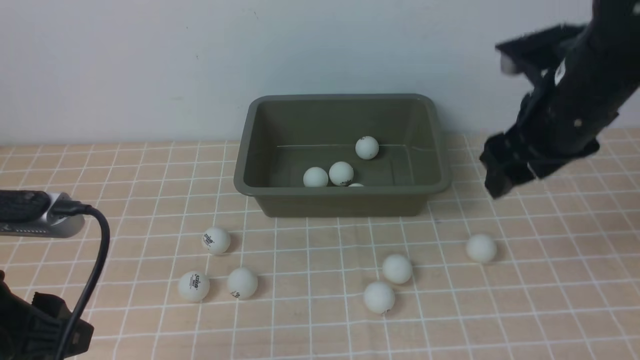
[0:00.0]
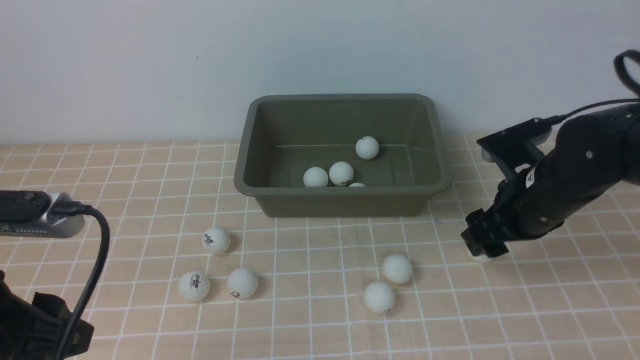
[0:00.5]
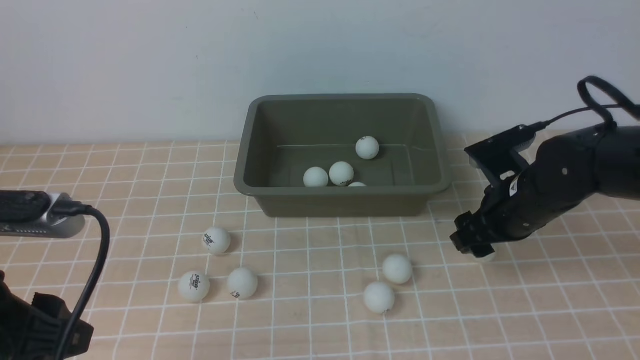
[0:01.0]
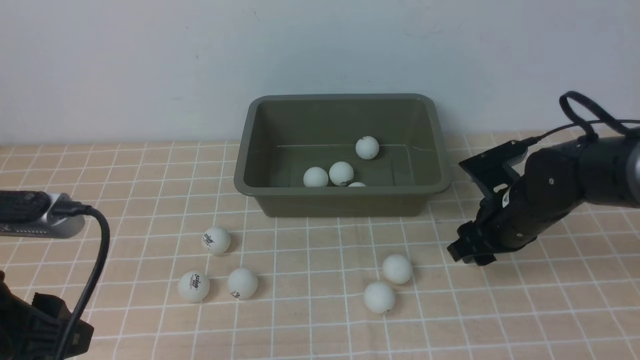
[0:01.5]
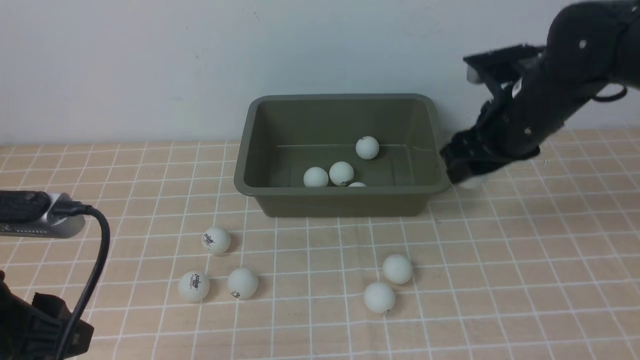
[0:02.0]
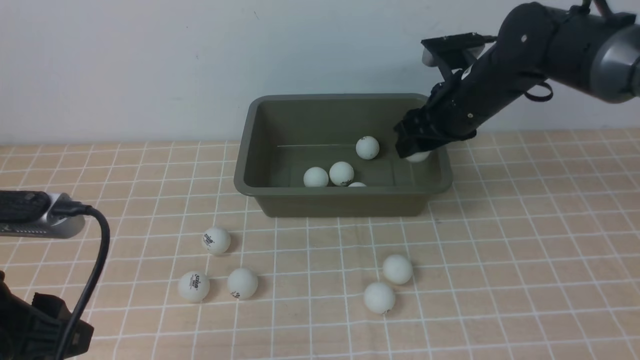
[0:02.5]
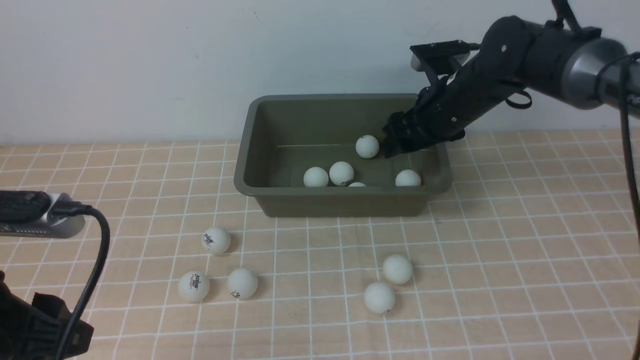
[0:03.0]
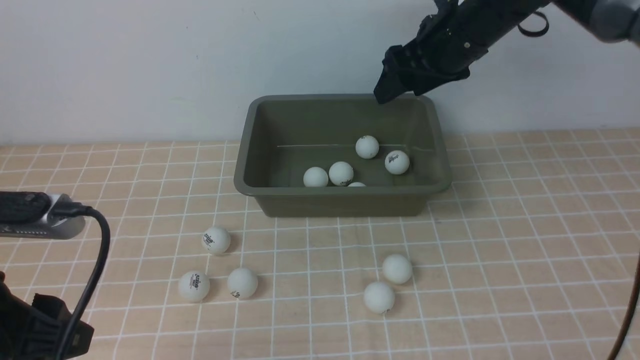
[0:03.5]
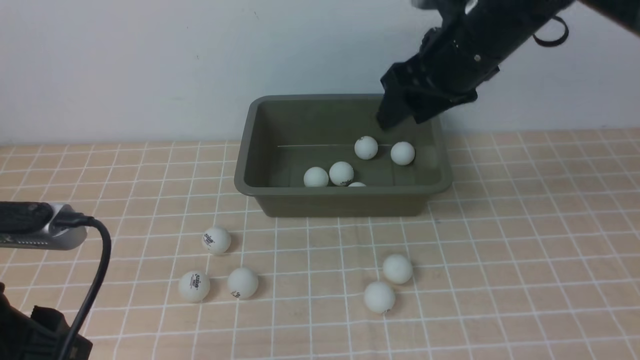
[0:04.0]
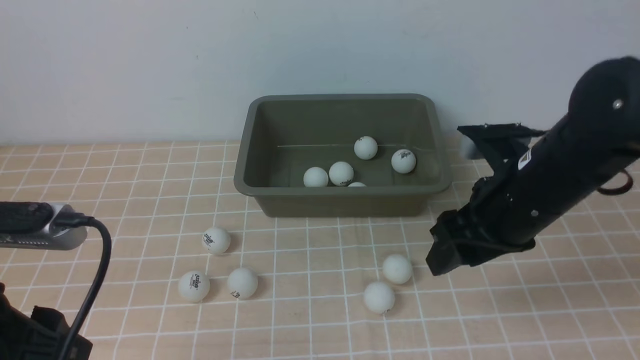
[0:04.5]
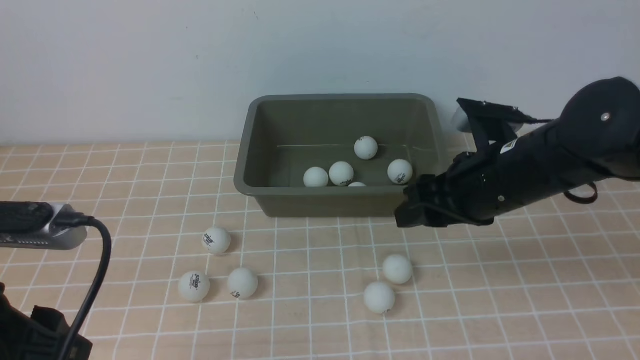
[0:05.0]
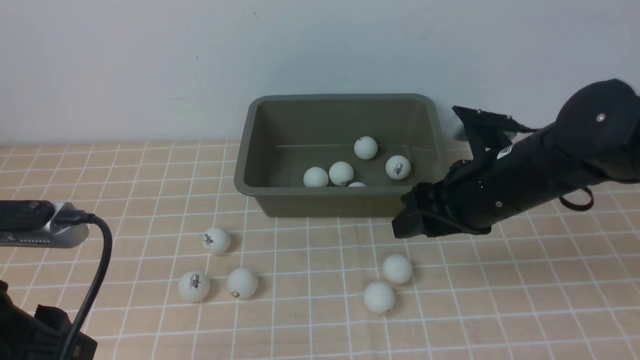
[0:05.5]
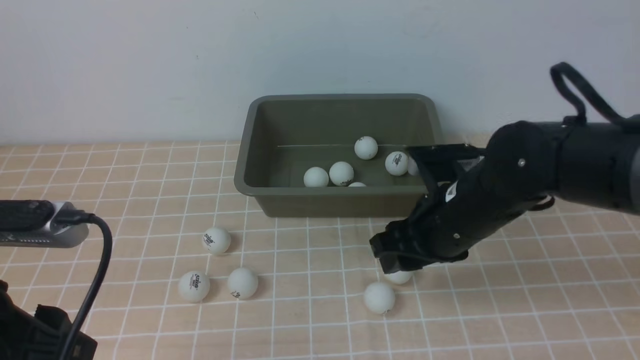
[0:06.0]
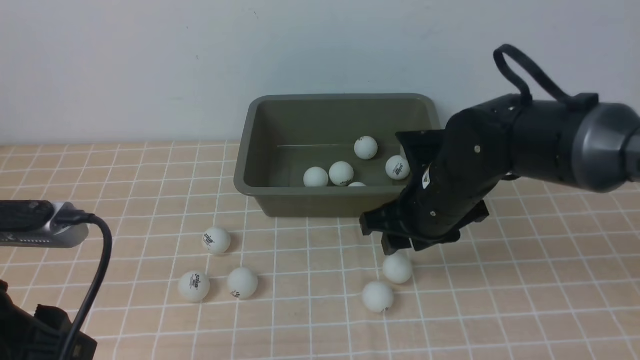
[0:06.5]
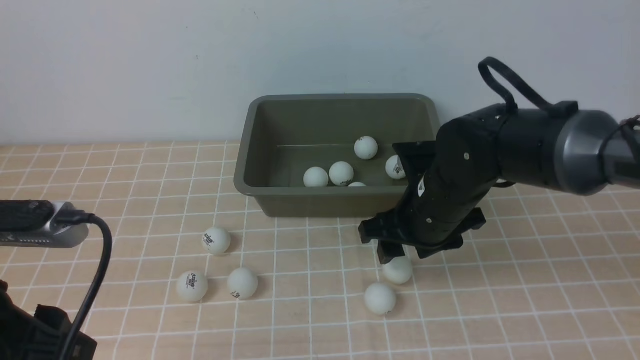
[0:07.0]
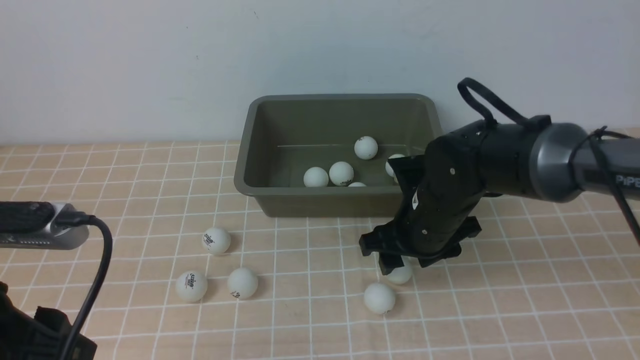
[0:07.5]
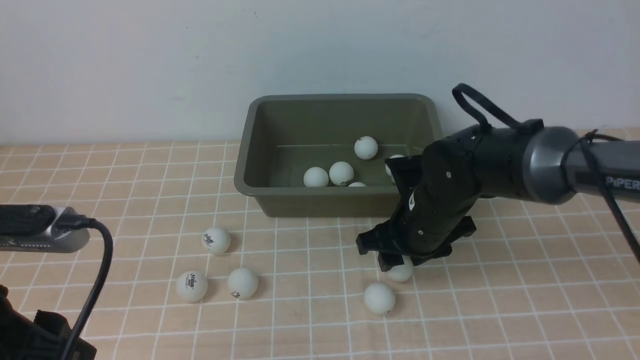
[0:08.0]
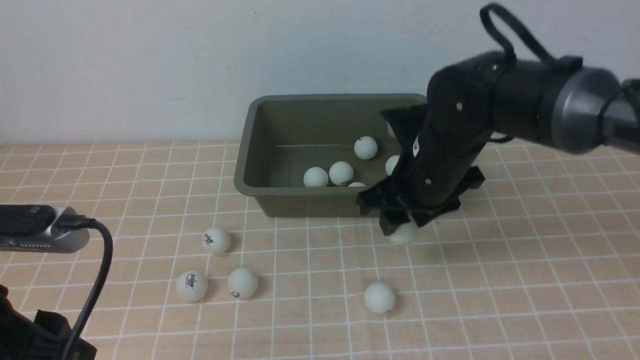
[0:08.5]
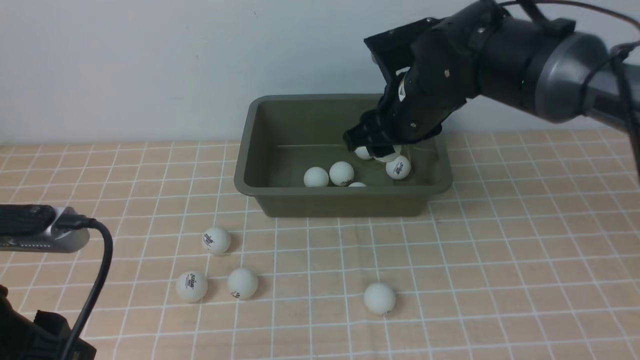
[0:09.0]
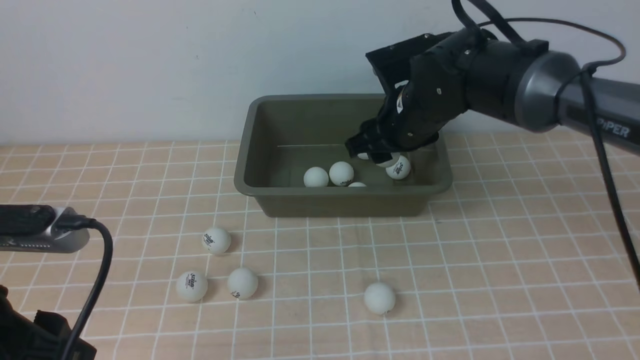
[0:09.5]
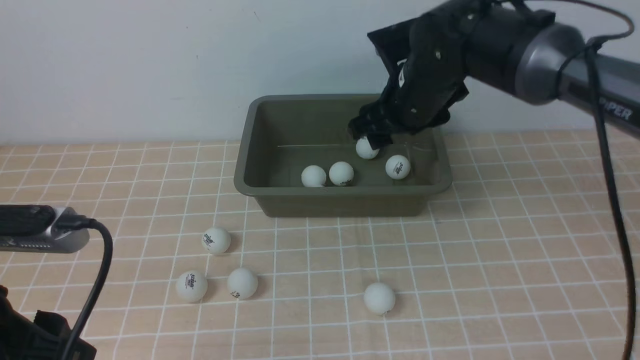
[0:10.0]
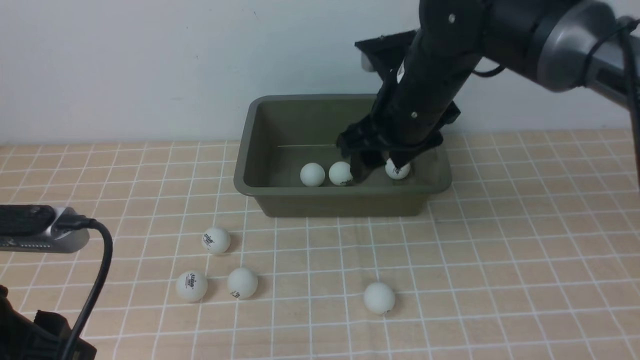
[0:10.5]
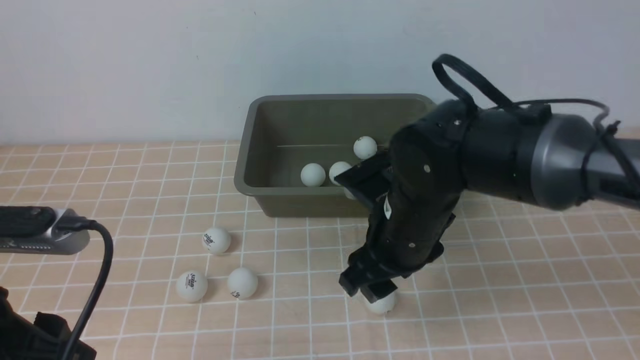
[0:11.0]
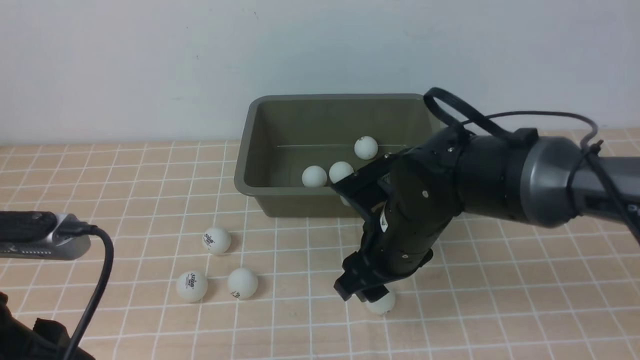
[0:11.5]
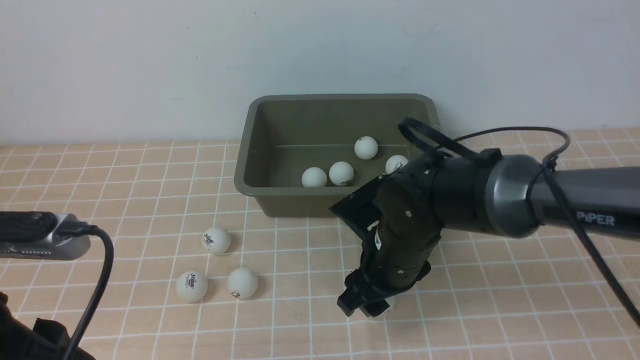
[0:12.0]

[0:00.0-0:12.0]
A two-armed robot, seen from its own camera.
Step, 0:00.0 to 0:02.0: use the right arm to clamp the table tennis ball closest to it.
Step, 0:02.5 to 0:03.0: use the right arm to put the table tennis ball into the box.
Step, 0:03.5 to 0:08.0: use the right arm to clamp the table tennis ball closest to it.
Step, 0:08.5 to 0:10.0: use the right arm to put the table tennis ball into the box.
0:00.0 to 0:02.0: The right gripper moves some 15 cm downward and comes back.
0:02.0 to 0:04.0: The right gripper travels upward by roughly 5 cm.
0:04.0 to 0:06.0: The right gripper travels downward and backward by about 15 cm.
0:06.0 to 0:08.0: The right gripper moves downward, about 5 cm.
0:08.0 to 0:10.0: The right gripper moves upward and forward, roughly 15 cm.
0:10.0 to 0:12.0: The right gripper goes some 15 cm downward and backward.

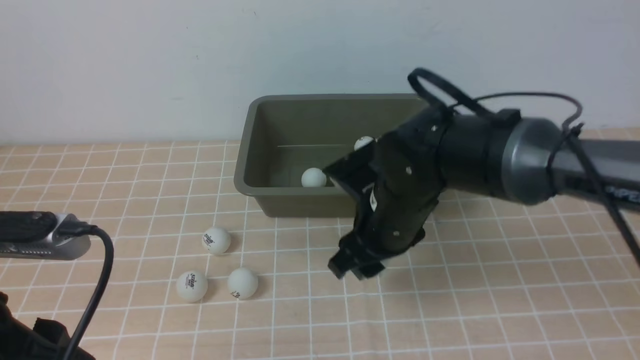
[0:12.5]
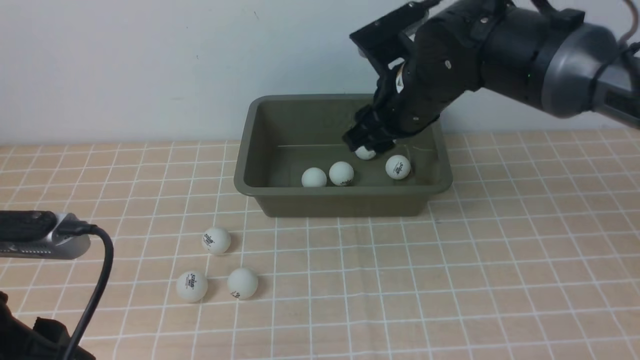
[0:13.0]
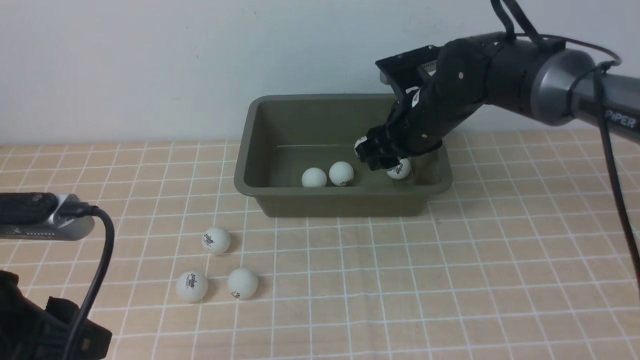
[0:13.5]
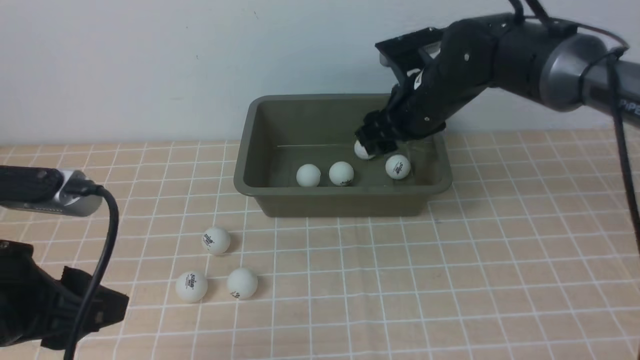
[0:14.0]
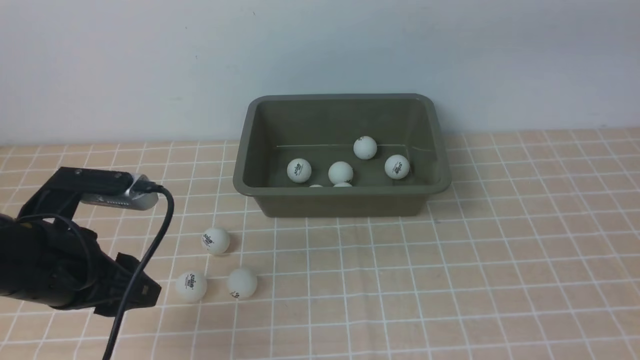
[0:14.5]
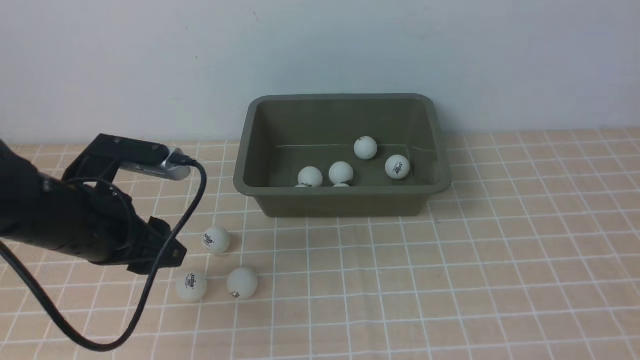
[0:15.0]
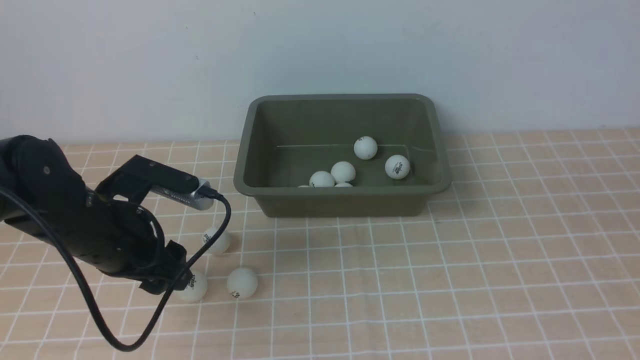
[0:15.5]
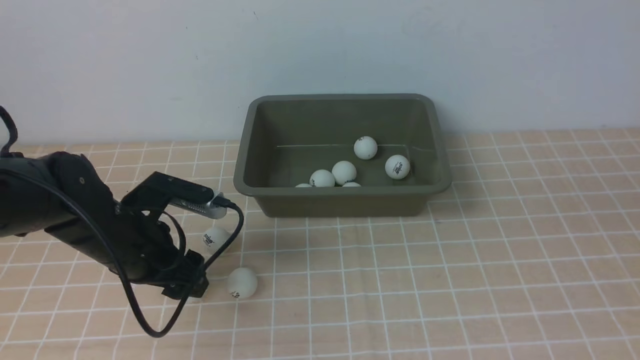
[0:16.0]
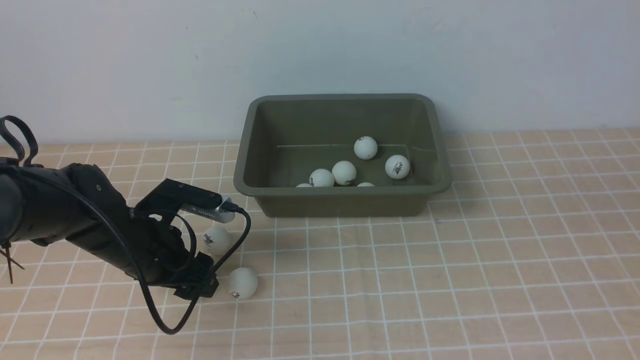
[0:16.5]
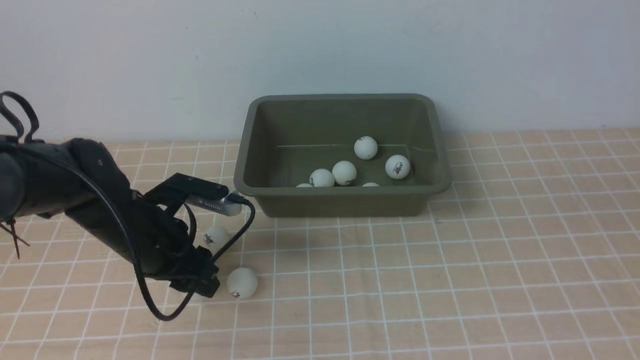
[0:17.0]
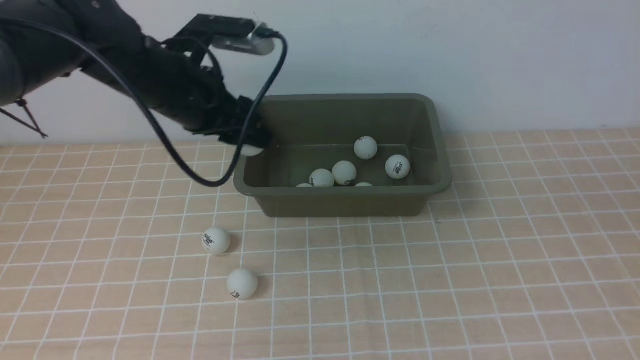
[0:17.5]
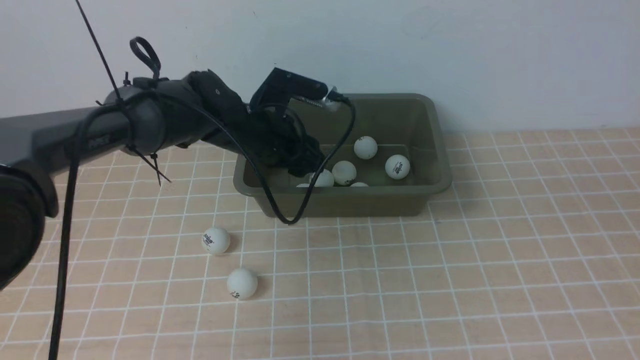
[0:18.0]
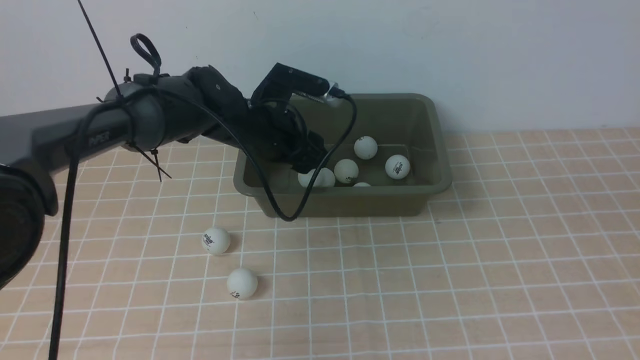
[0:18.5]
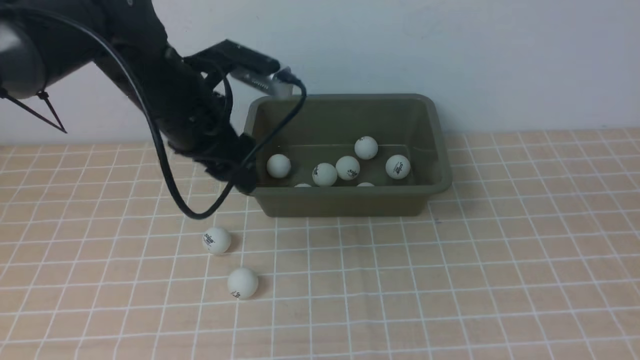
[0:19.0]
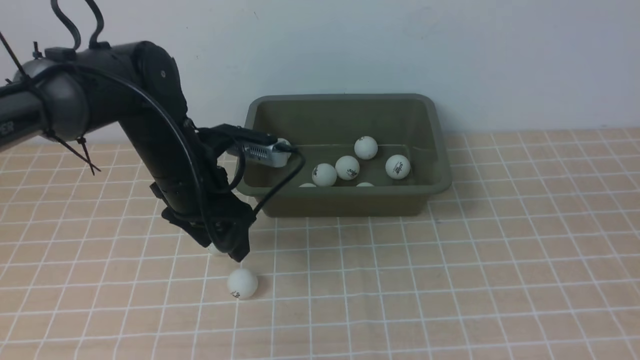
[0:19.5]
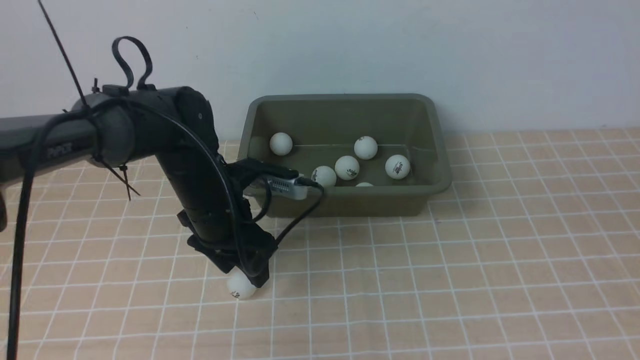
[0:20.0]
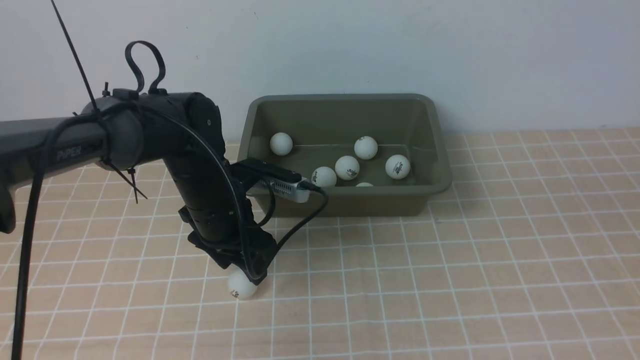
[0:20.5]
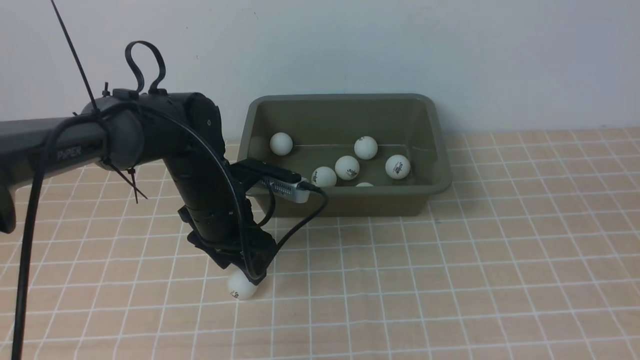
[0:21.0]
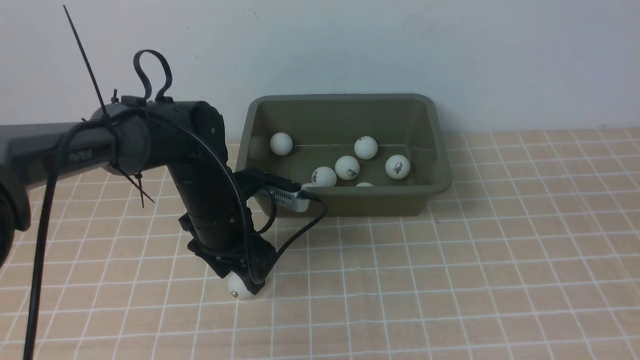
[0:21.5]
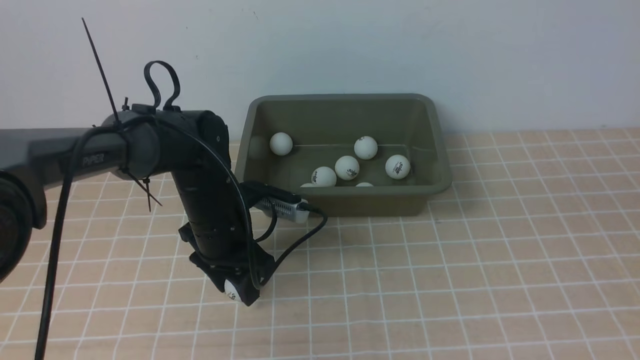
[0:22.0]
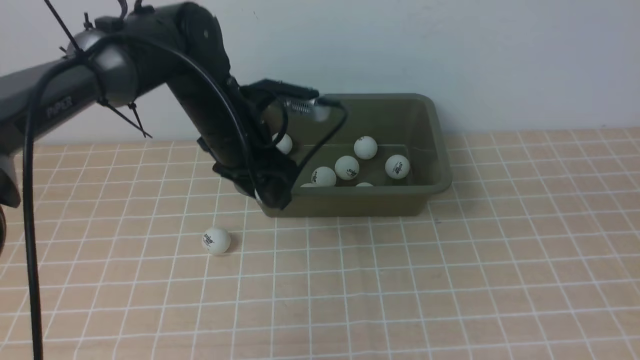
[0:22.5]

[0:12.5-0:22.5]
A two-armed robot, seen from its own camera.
Step, 0:13.0 to 0:14.0: use the right arm to put the table tennis ball into the box.
Step, 0:14.5 to 0:17.0: use the left arm to clamp the table tennis ball closest to it.
Step, 0:17.5 to 0:18.5: use the left arm to put the table tennis ball into the box.
Step, 0:19.0 to 0:22.0: use the left arm to clamp the table tennis ball closest to it.
0:12.5 to 0:14.5: The left gripper heads forward, covering about 10 cm, while the right gripper swings up and down, some 25 cm each way, with 2 reversals.
0:14.5 to 0:16.5: The right gripper goes approximately 20 cm backward, and closes up. The left gripper heads downward and forward, covering some 15 cm.
0:16.5 to 0:18.5: The left gripper shifts roughly 20 cm forward, to the right and upward.
0:18.5 to 0:20.5: The left gripper goes some 5 cm backward.
0:20.5 to 0:22.5: The left gripper heads upward, covering roughly 5 cm.
